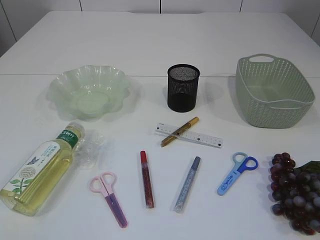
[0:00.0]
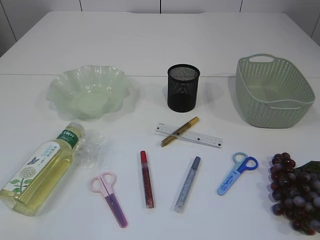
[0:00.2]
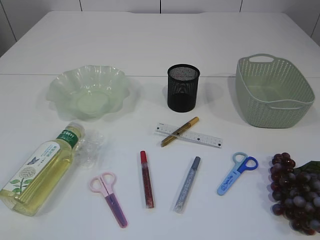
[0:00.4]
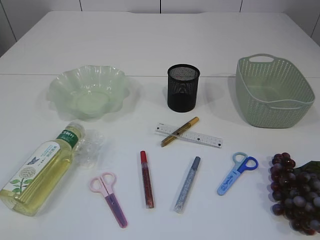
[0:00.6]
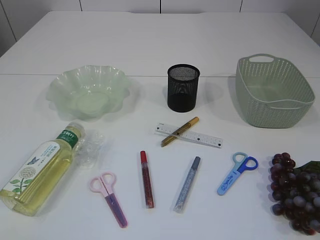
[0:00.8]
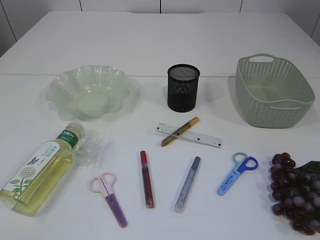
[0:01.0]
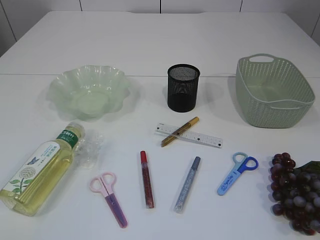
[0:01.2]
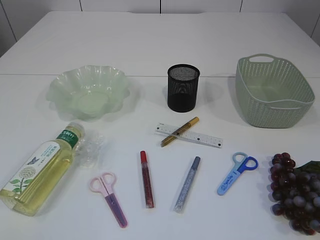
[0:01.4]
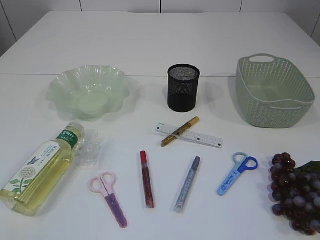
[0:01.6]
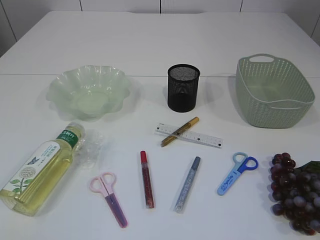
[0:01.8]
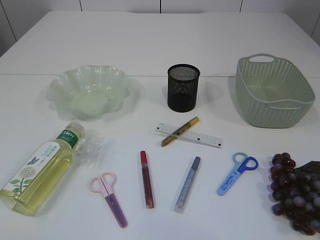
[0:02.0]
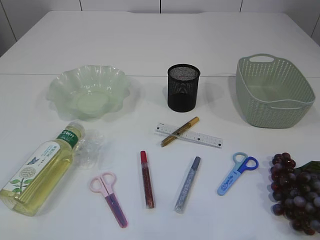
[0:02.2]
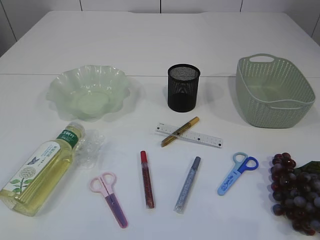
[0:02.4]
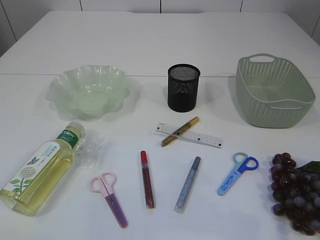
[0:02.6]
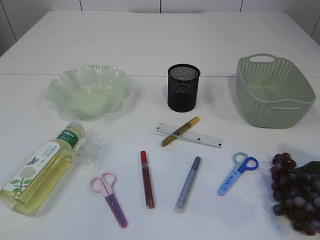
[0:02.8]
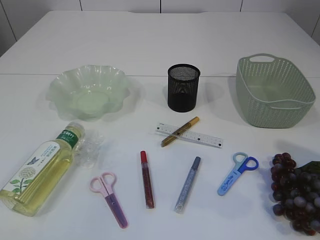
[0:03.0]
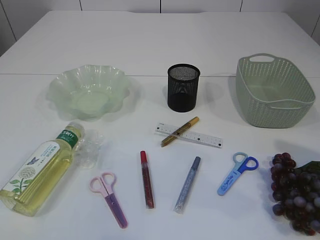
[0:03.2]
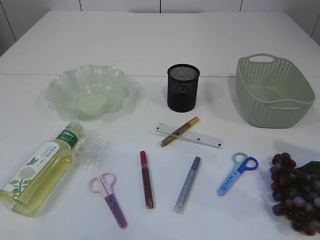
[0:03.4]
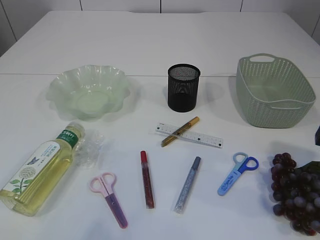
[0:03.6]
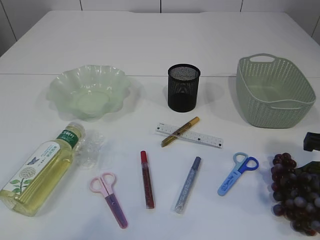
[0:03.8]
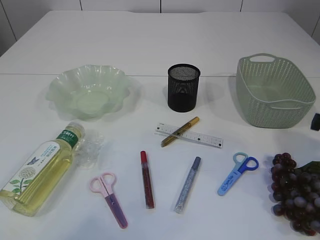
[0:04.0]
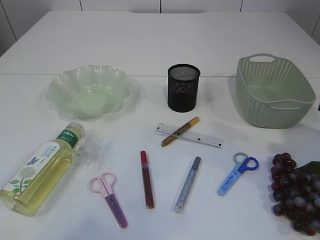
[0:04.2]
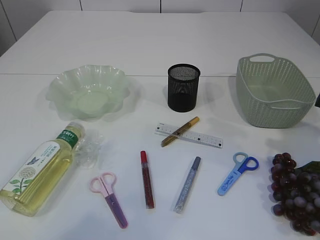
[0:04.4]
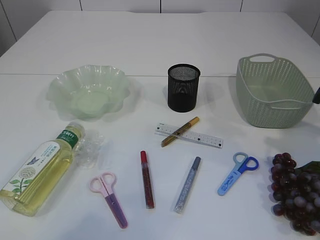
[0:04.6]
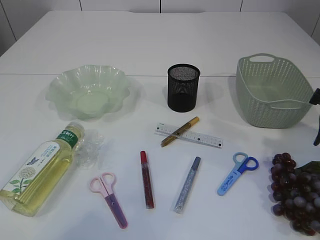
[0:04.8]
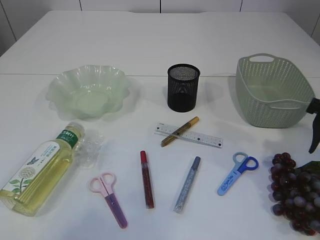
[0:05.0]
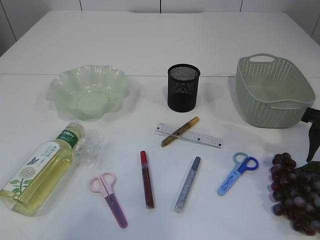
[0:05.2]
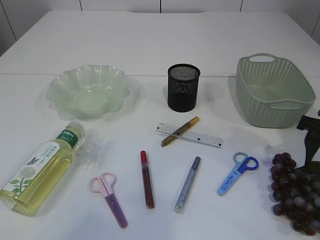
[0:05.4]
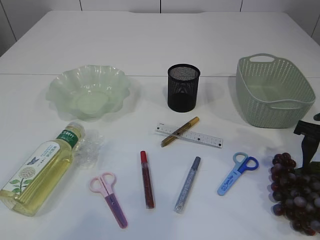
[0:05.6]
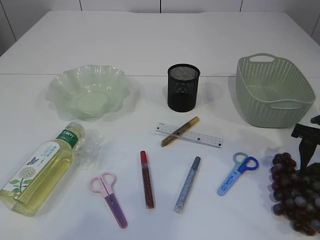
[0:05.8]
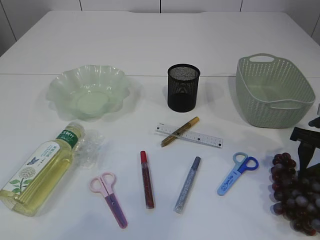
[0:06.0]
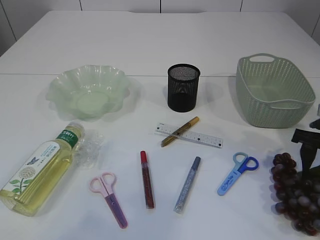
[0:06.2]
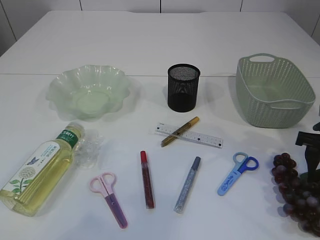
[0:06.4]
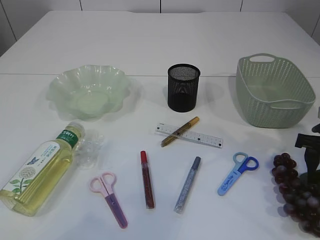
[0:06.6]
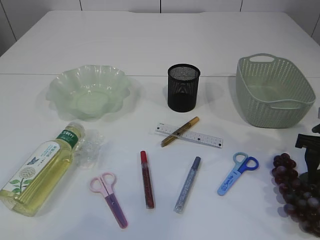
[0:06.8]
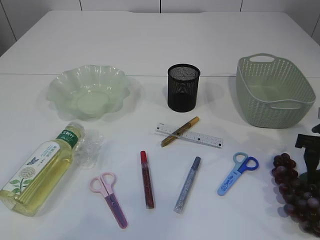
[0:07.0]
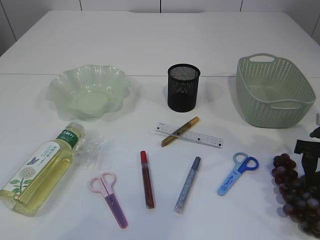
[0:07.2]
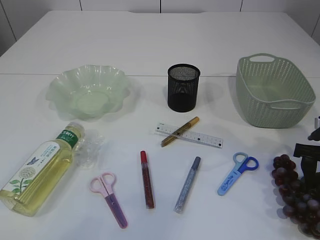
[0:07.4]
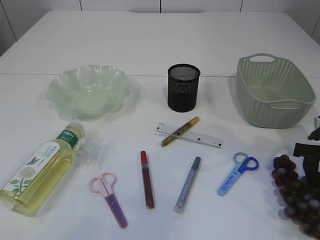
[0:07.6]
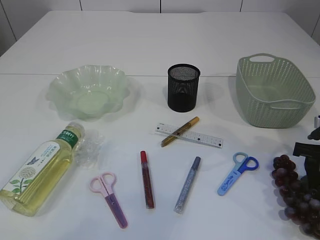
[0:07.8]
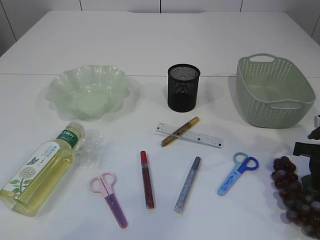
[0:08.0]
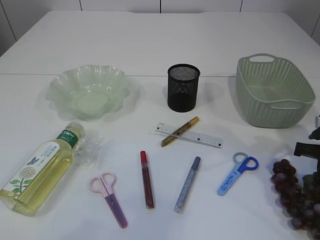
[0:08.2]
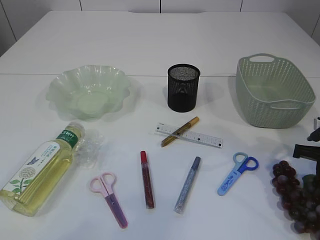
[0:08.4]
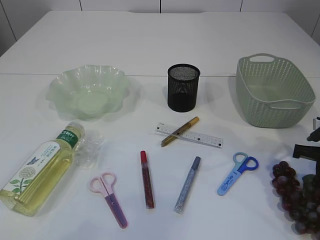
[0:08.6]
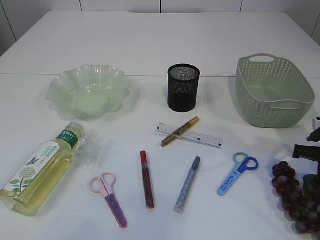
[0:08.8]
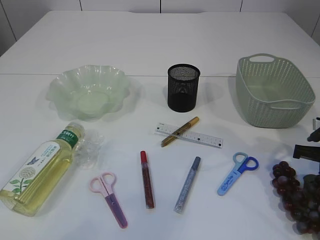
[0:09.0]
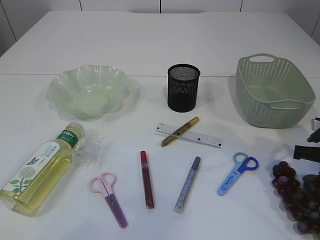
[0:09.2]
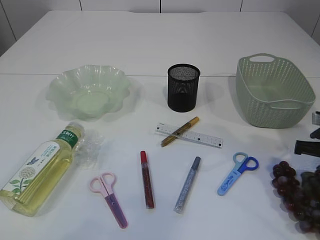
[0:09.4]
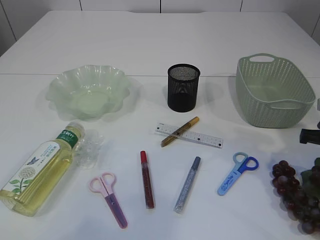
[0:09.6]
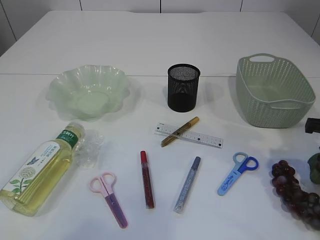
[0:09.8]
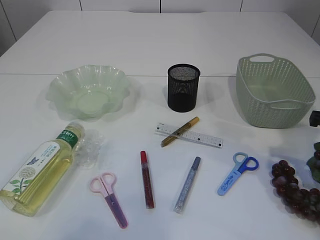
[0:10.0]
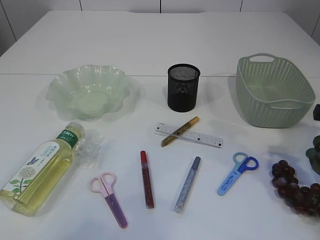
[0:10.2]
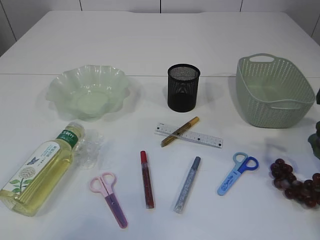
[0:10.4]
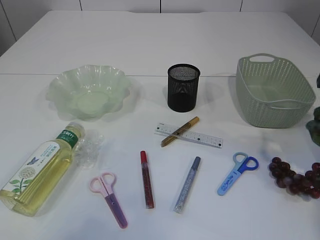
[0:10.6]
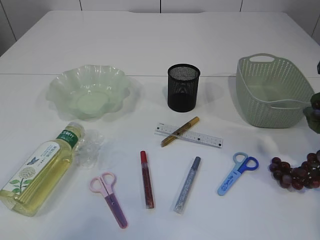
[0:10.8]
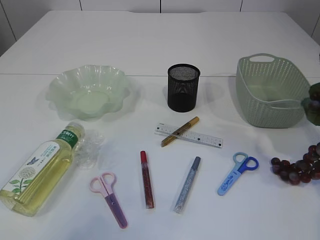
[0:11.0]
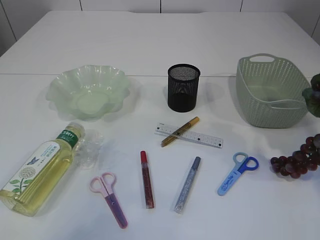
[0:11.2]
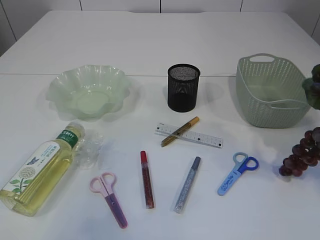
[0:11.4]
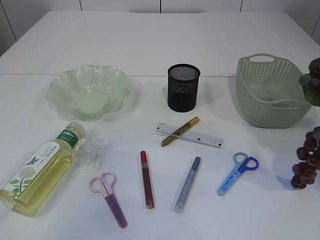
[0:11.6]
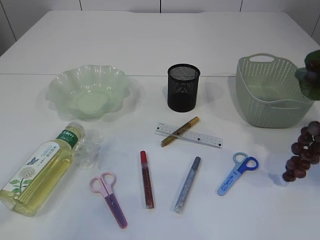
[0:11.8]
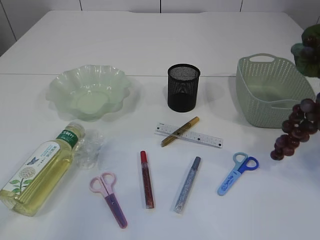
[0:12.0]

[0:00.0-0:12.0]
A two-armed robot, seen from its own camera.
0:01.6 to 0:03.0: The right gripper is displaced forward by roughly 20 cm.
0:03.0 to 0:04.4: The right gripper moves forward, approximately 10 cm, and closes.
0:04.4 to 0:06.0: The right gripper heads downward, covering some 10 cm, and opens its fingers.
0:06.0 to 0:07.6: The grippers stay close to where they were, moving slightly.
0:07.6 to 0:09.0: The right gripper closes its fingers.
0:09.0 to 0:10.4: The right gripper shifts roughly 10 cm upward.
0:10.4 to 0:12.0: The right gripper shifts about 15 cm upward.

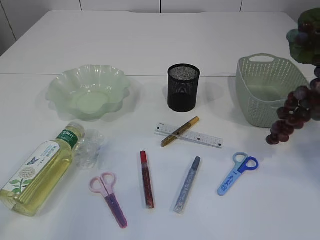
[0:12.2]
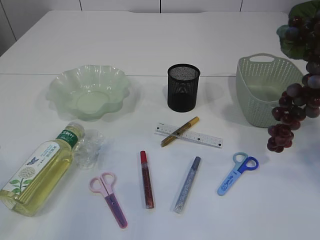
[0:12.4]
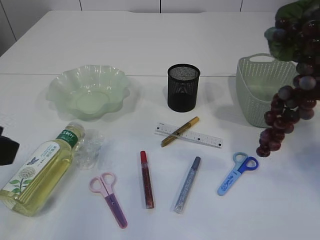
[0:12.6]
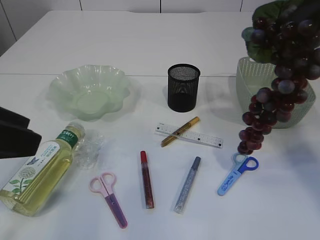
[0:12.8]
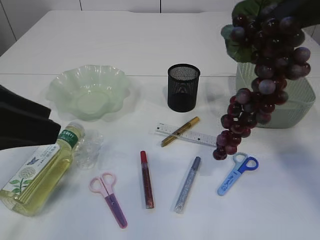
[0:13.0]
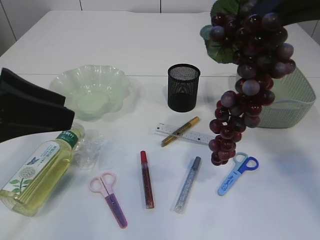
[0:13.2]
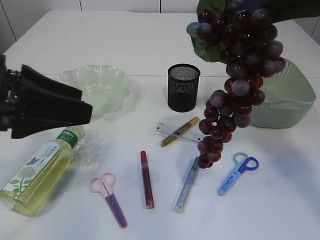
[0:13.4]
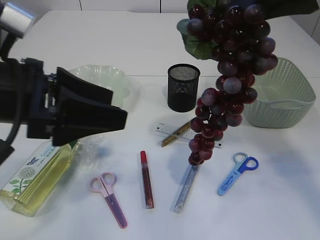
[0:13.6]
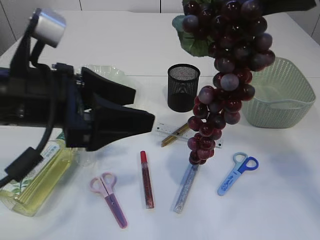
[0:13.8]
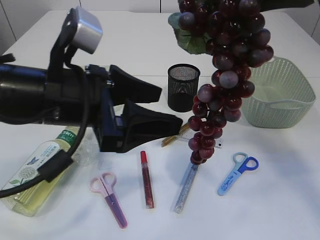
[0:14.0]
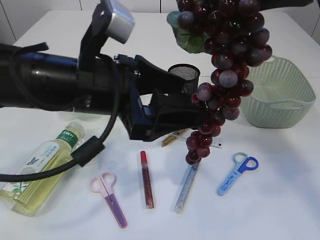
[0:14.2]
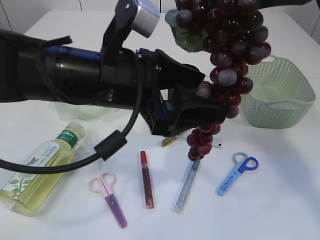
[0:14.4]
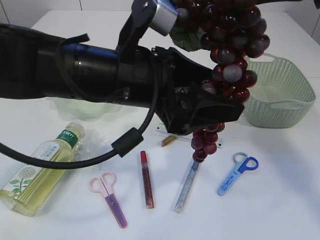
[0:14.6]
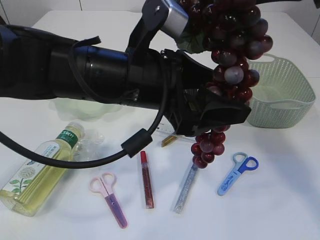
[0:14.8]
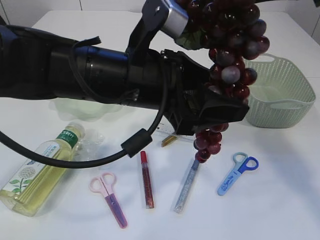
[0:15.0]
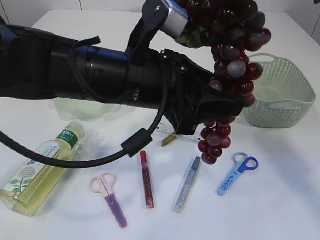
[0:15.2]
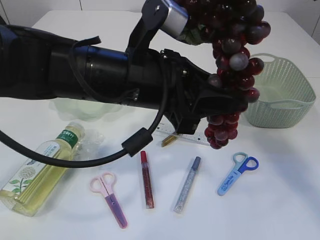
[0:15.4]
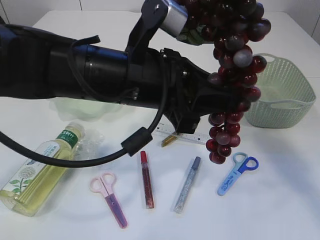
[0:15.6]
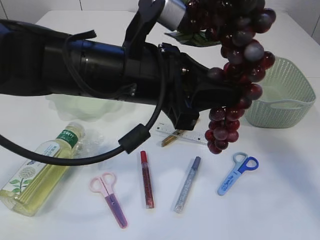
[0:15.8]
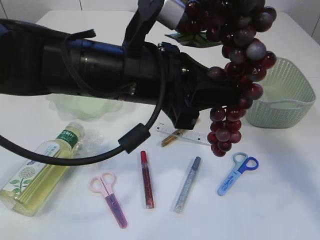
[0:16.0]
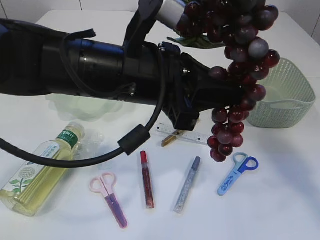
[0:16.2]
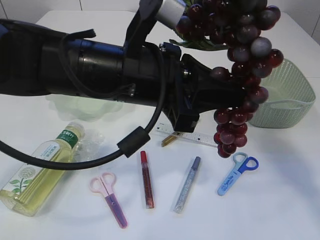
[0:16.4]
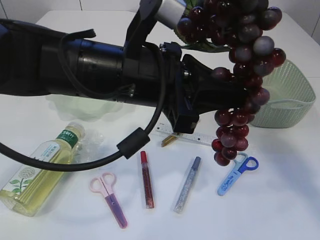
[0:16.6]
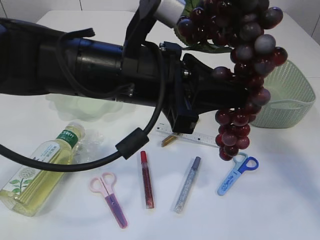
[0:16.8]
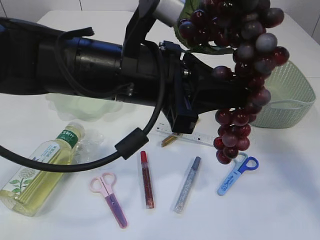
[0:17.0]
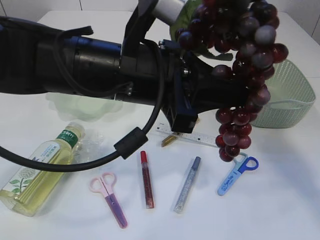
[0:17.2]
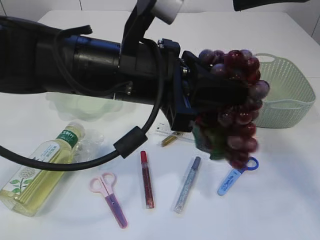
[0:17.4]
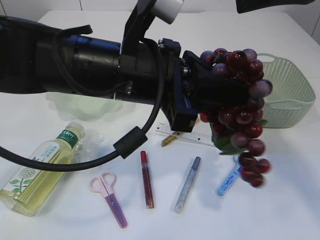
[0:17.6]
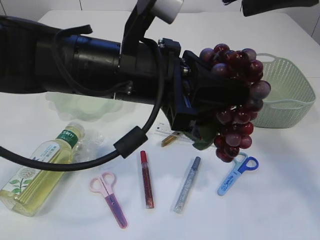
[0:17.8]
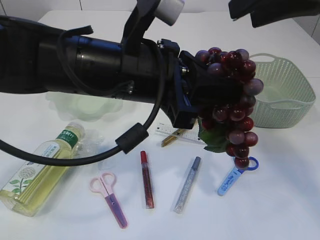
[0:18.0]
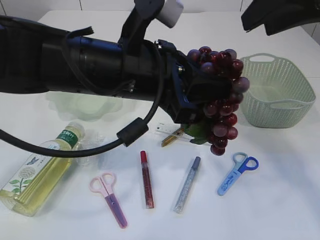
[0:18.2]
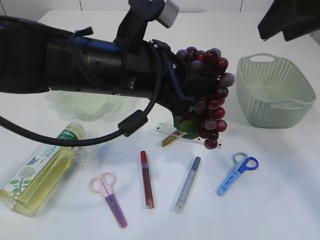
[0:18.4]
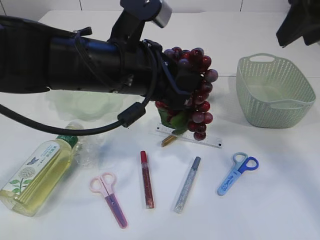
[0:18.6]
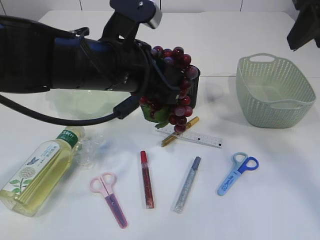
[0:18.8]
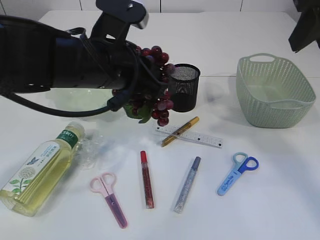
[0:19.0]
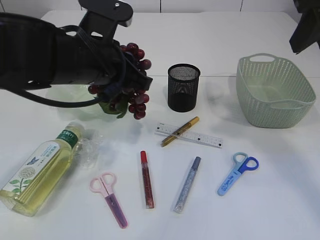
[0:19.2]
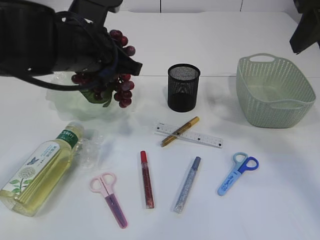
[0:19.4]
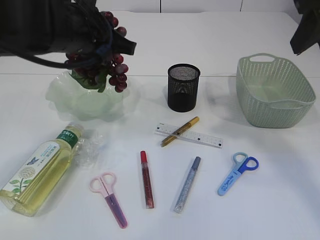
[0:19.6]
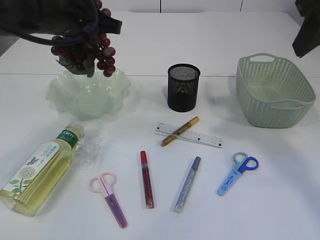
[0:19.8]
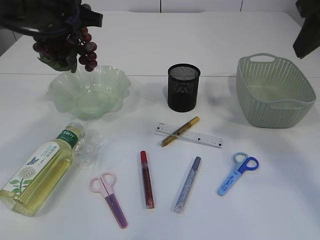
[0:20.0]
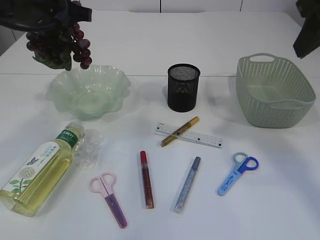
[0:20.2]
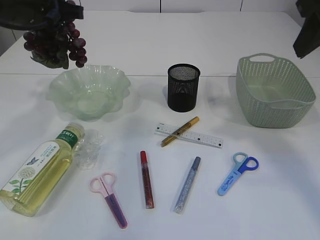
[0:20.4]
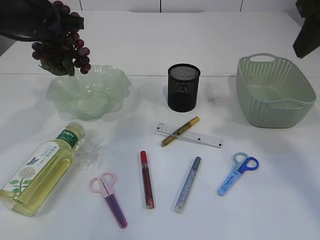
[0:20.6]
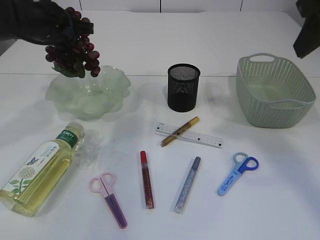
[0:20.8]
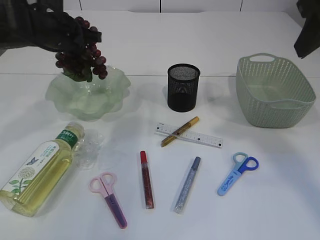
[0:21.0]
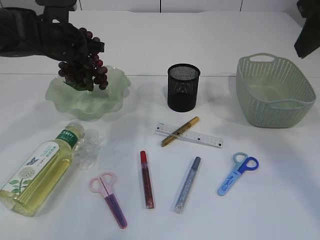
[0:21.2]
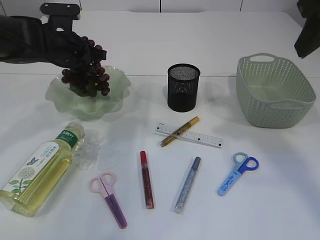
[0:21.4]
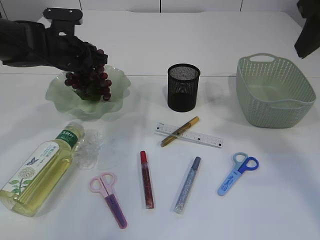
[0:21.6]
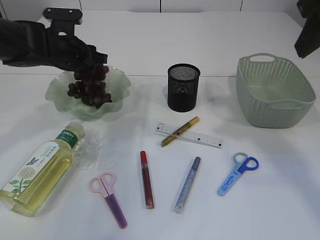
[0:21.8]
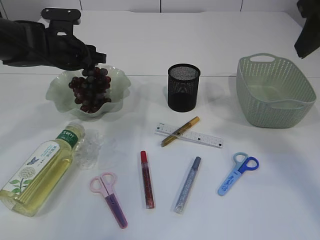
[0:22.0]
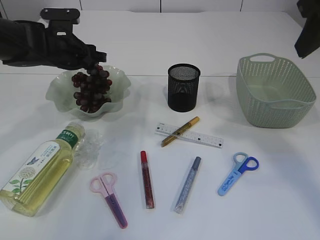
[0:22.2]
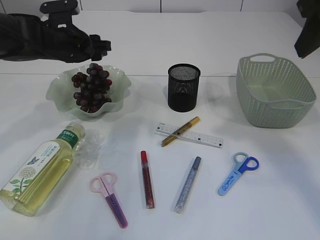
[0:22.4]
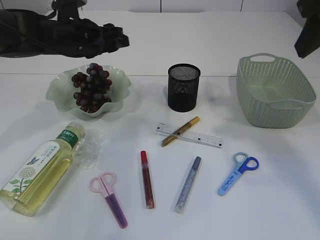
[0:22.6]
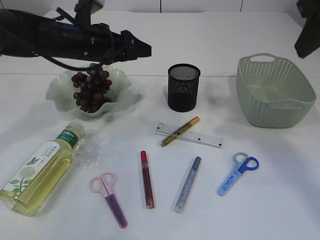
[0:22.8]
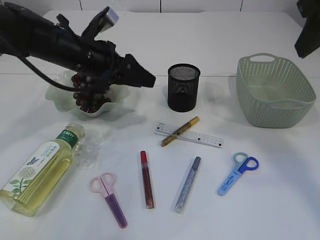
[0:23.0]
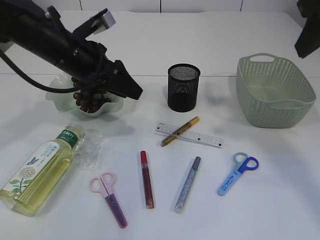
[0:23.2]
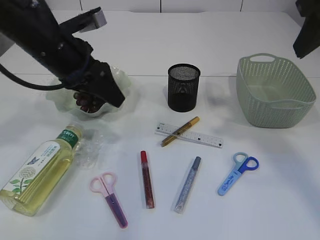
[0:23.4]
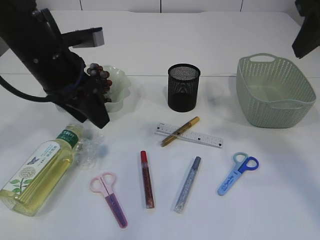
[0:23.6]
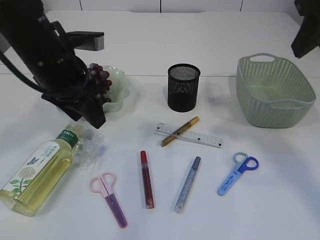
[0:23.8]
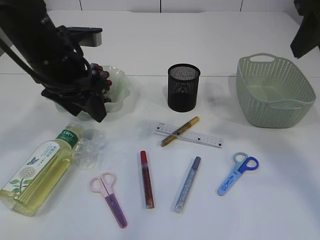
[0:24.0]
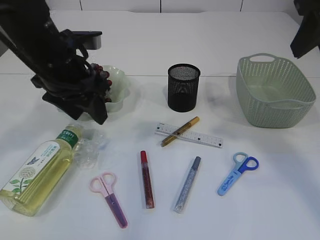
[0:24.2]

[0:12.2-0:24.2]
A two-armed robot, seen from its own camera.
Step, 0:13.0 to 0:18.6: Hand over the grapes.
Step, 0:18.8 to 0:22.8: Place the grapes in the plate.
0:12.2 to 0:13.8: The right gripper moves to the left, about 10 cm. The left gripper moves to the right, forward and downward, about 15 cm.
0:13.8 to 0:15.2: The left gripper goes some 10 cm to the right.
0:15.2 to 0:16.6: The left gripper closes its fingers.
0:16.6 to 0:18.2: The right gripper opens up.
0:18.2 to 0:19.8: The left gripper goes about 15 cm to the left and forward.
0:19.8 to 0:21.2: The left gripper heads forward, downward and to the left, covering about 15 cm.
0:21.2 to 0:22.6: The left gripper opens.
0:22.6 to 0:24.2: The left gripper travels backward by some 10 cm.
